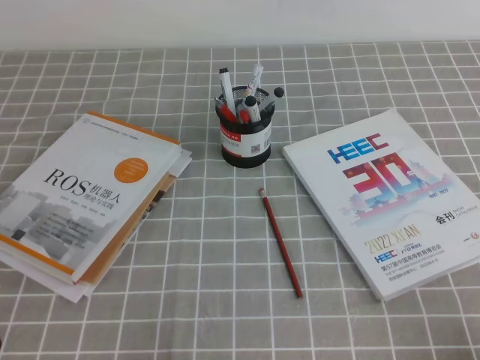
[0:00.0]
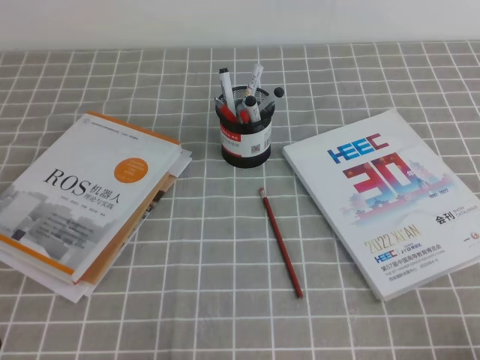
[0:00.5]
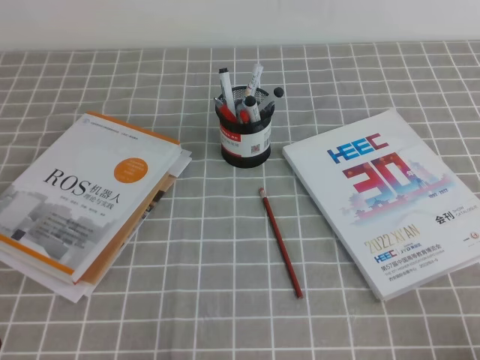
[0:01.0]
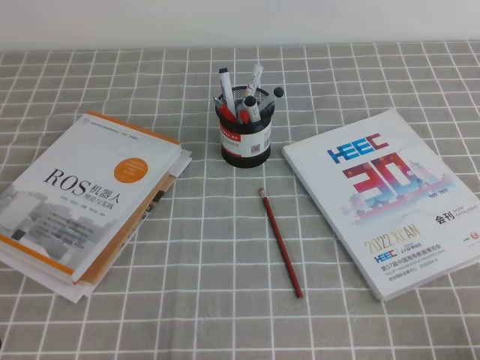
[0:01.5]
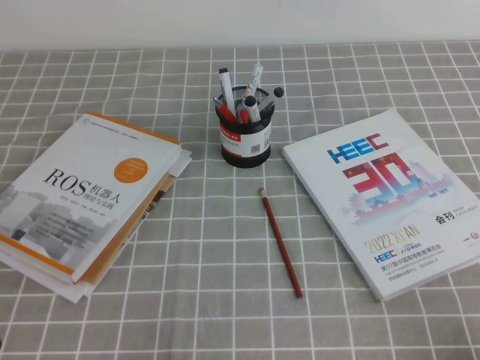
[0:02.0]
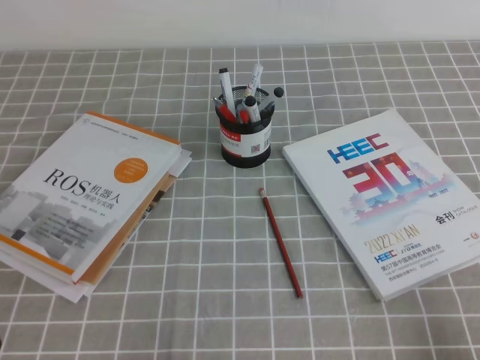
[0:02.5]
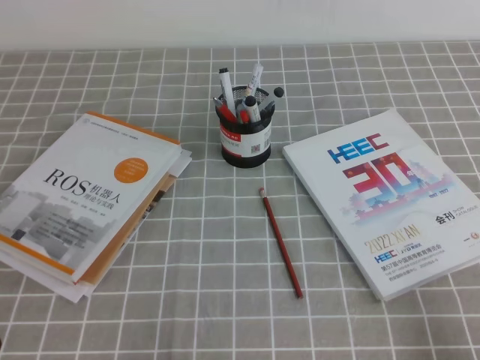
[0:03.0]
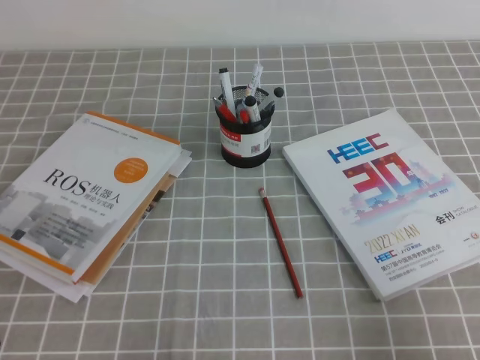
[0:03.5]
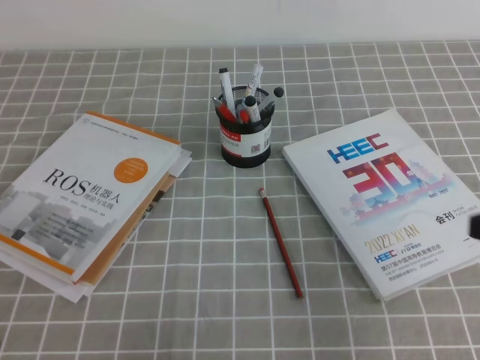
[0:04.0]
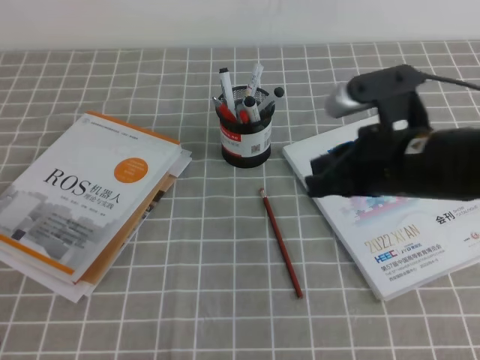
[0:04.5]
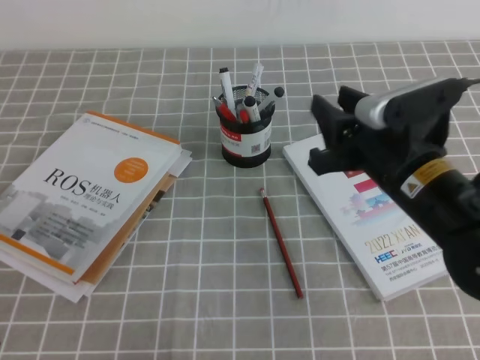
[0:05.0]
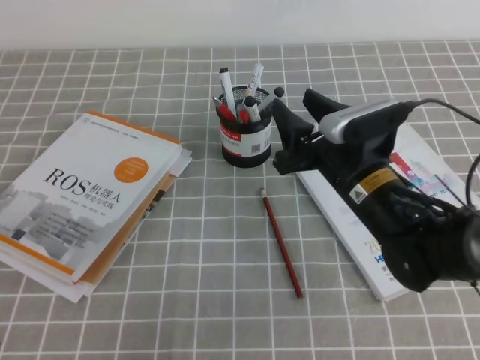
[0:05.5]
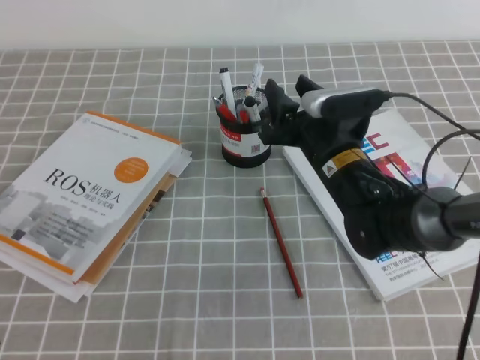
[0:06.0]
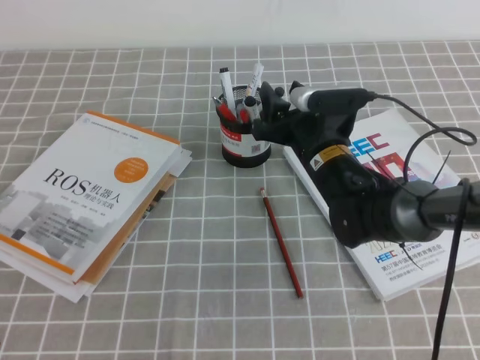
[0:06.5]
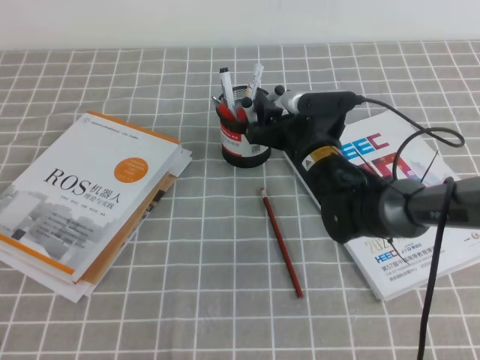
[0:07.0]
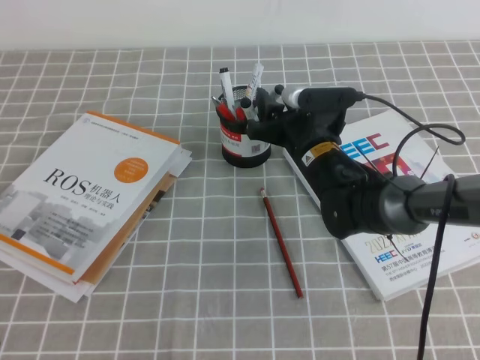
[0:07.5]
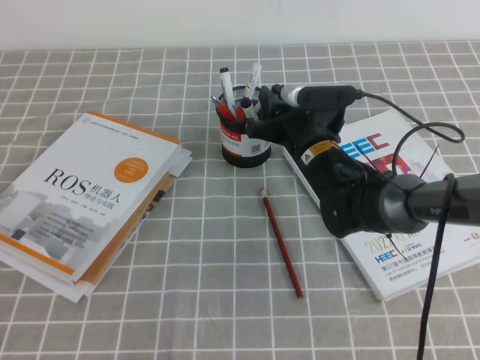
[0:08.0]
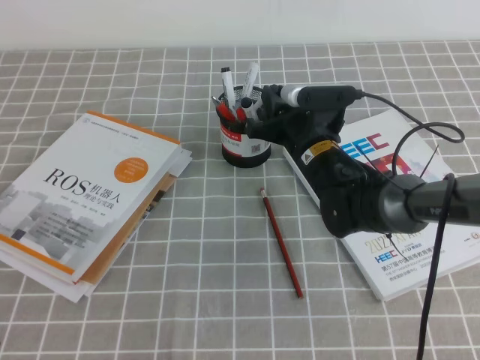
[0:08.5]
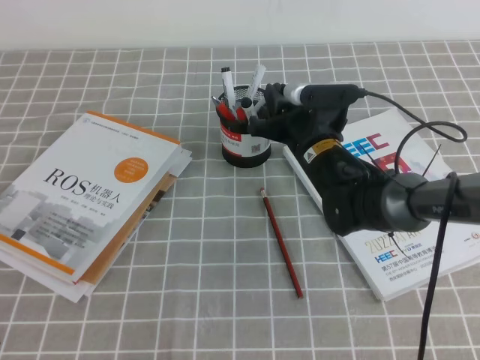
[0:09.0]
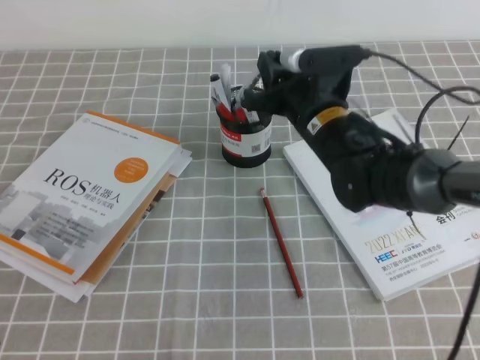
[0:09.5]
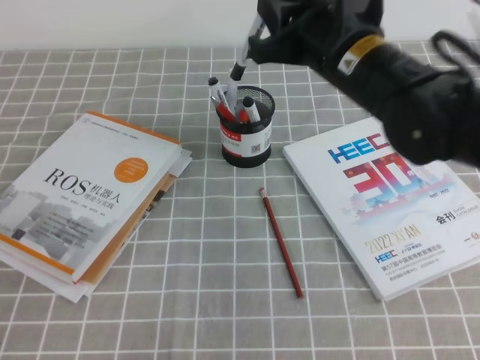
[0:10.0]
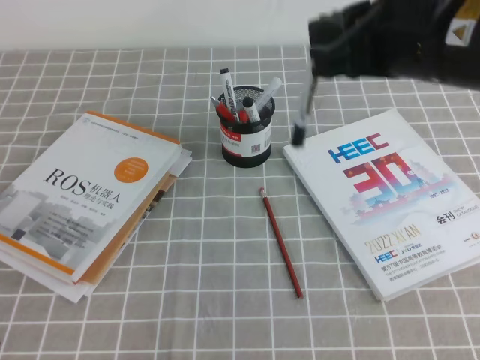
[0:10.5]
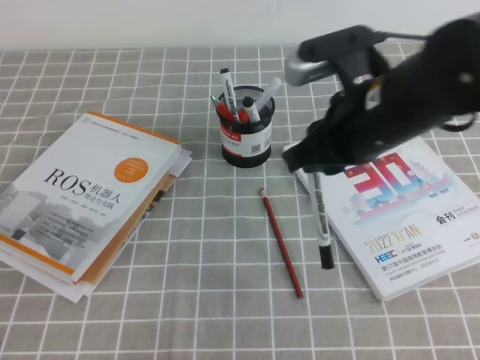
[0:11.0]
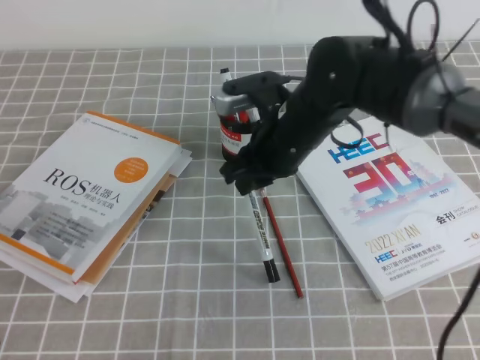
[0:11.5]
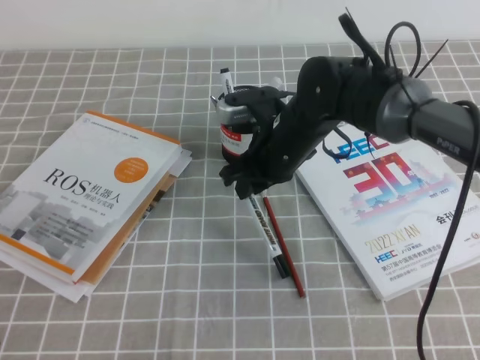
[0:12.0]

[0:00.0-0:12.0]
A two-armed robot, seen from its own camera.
0:00.0 to 0:02.0: Both grippers stay about where they are.
0:02.0 to 0:04.0: The right gripper heads upward and forward, covering about 15 cm.
0:04.0 to 0:06.0: The right gripper travels forward, to the left and downward by roughly 30 cm, and opens its fingers.
0:06.0 to 0:08.0: The right gripper moves some 5 cm, and closes.
0:08.0 to 0:10.0: The right gripper is displaced upward by about 15 cm.
0:10.0 to 0:12.0: The right gripper shifts some 15 cm downward and to the left.

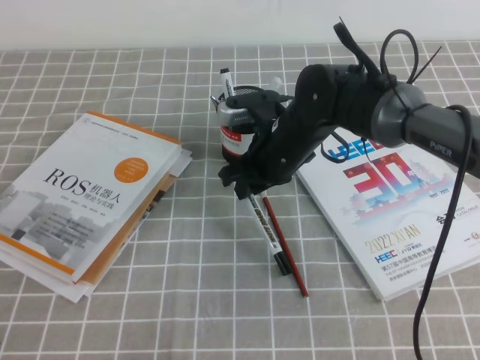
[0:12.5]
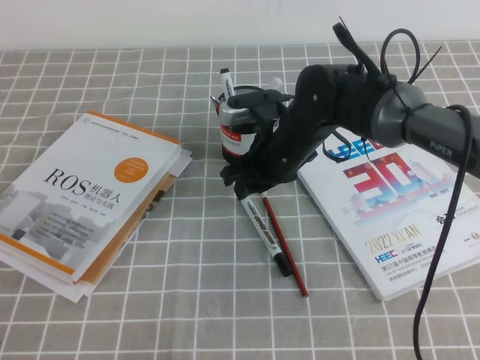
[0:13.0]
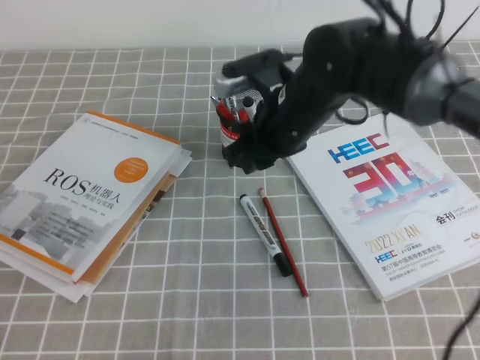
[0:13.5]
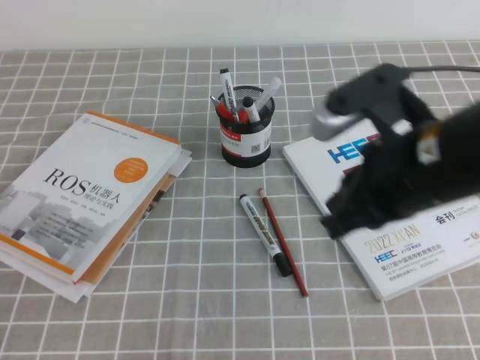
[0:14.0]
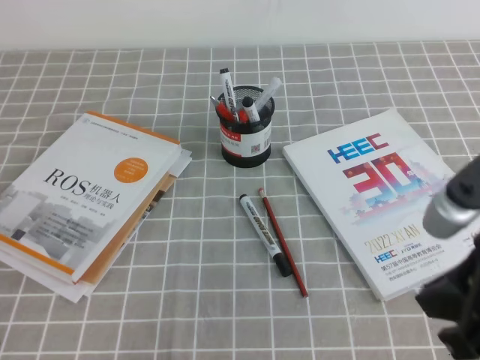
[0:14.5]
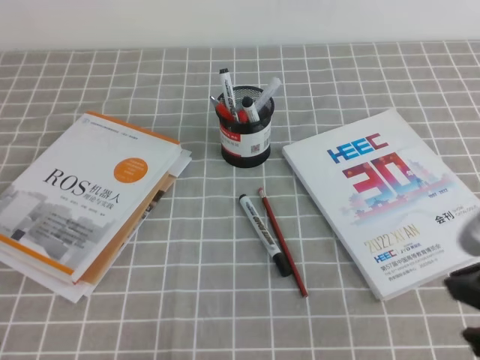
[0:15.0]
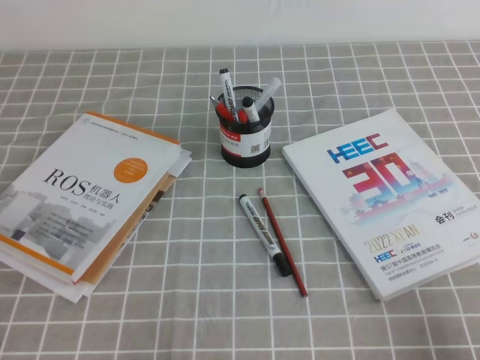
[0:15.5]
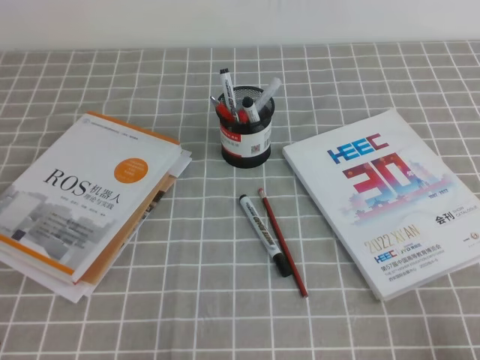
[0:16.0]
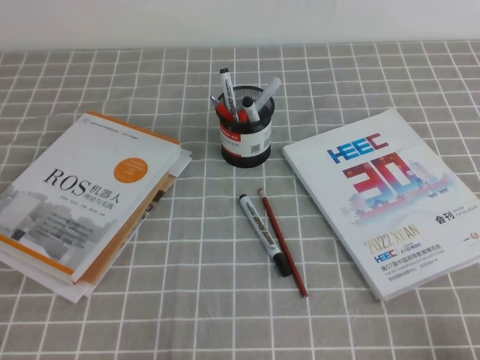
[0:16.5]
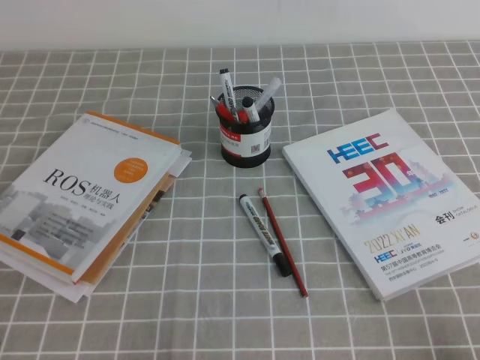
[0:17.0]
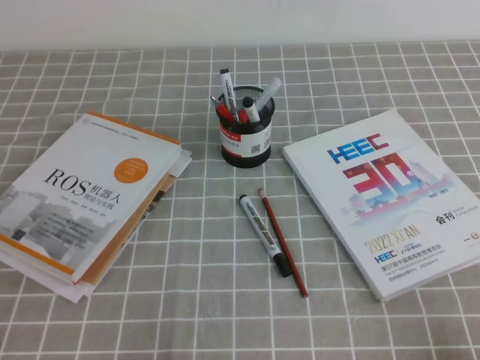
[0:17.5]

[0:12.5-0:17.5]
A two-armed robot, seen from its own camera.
Step, 0:12.5 to 0:17.5: Pick up the pen from the pen holder.
0:12.5 to 0:15.0: The right gripper goes some 30 cm backward and to the right.
0:15.0 to 0:17.5: The right gripper heads downward, backward and to the right, covering approximately 15 cm.
